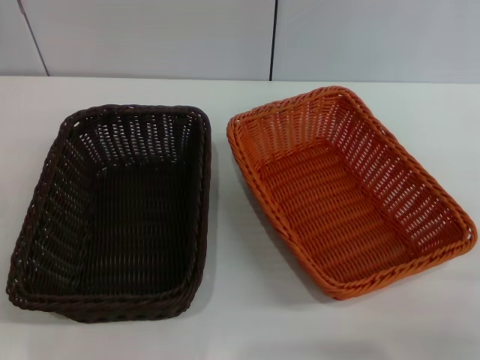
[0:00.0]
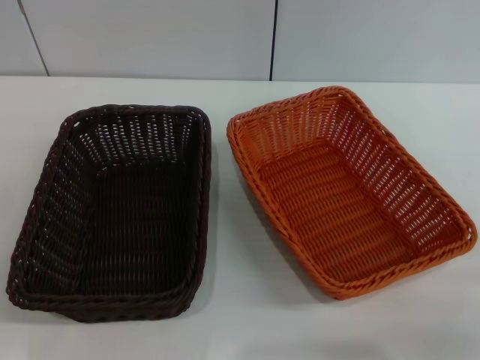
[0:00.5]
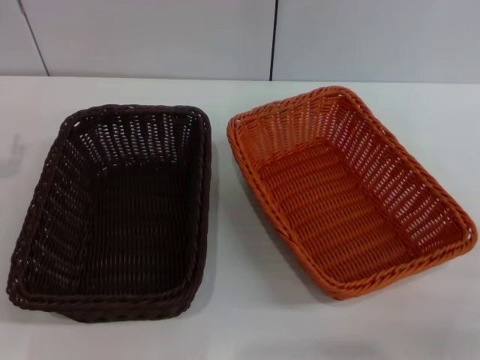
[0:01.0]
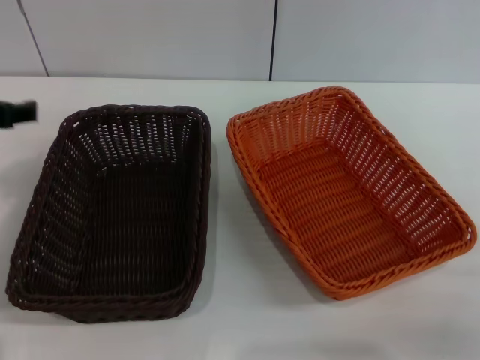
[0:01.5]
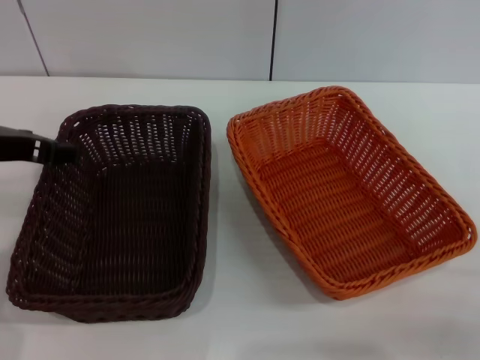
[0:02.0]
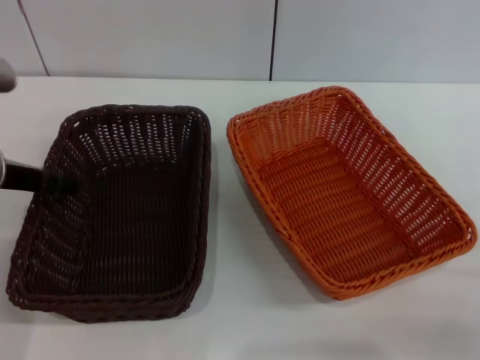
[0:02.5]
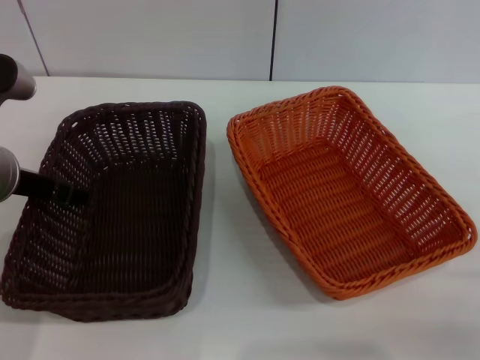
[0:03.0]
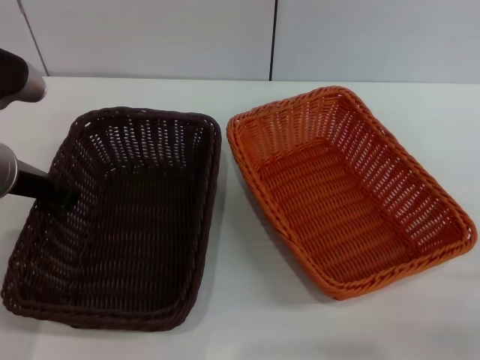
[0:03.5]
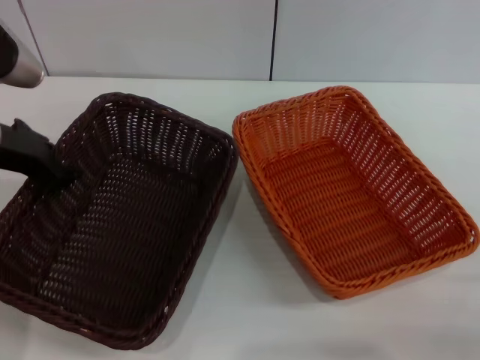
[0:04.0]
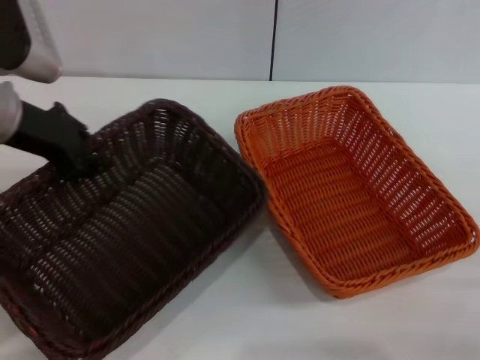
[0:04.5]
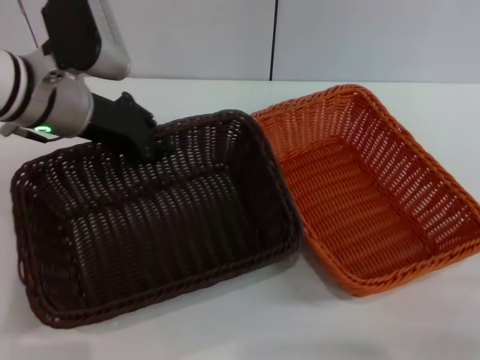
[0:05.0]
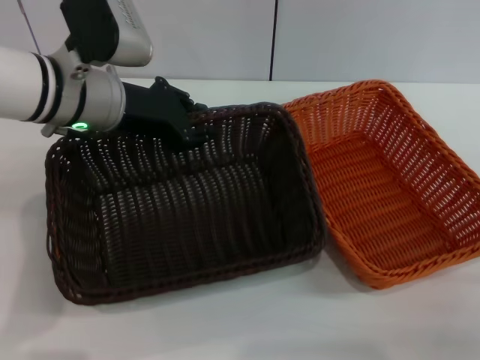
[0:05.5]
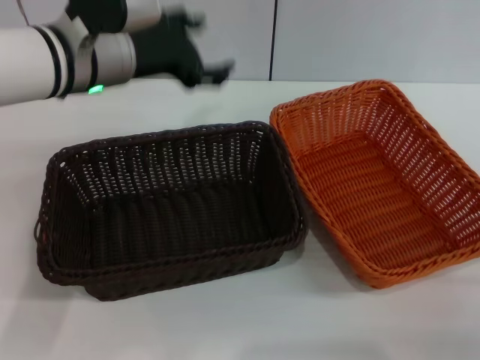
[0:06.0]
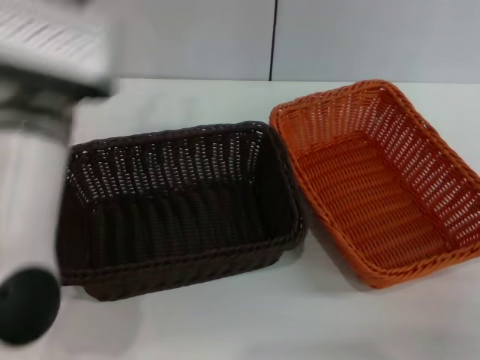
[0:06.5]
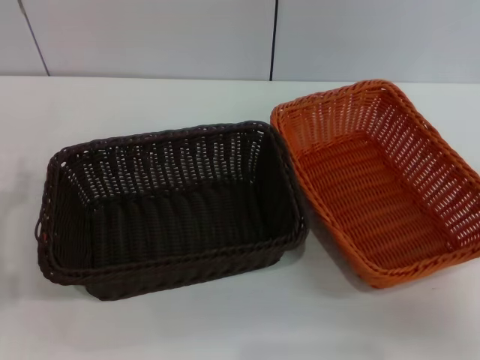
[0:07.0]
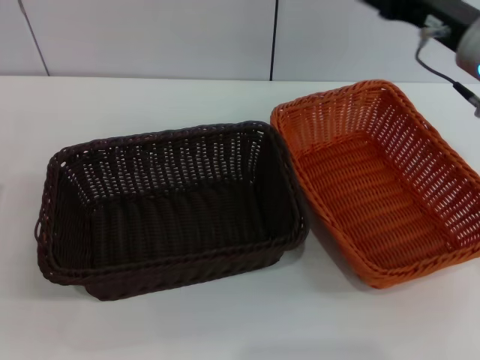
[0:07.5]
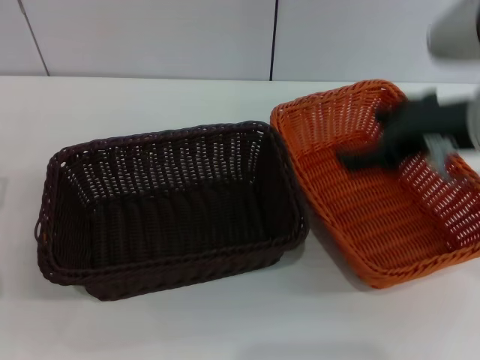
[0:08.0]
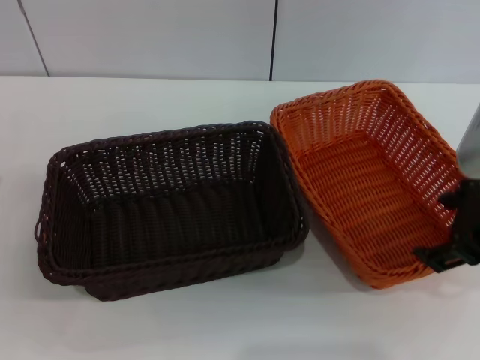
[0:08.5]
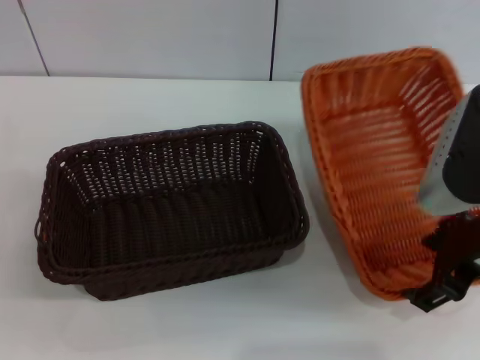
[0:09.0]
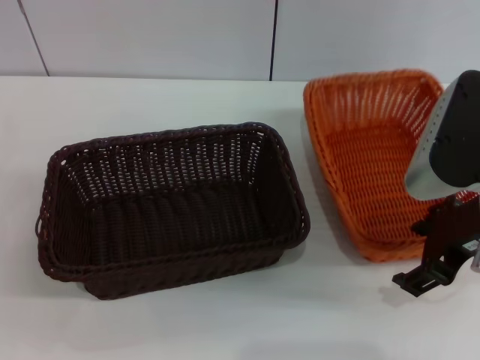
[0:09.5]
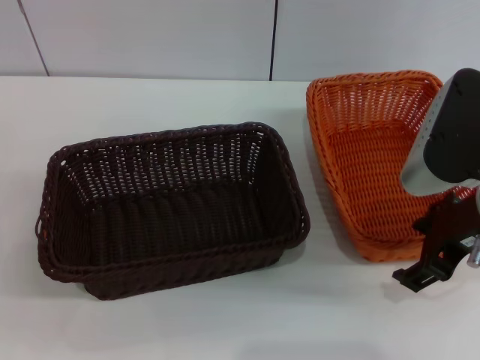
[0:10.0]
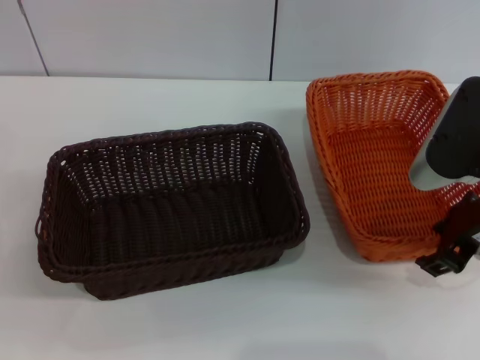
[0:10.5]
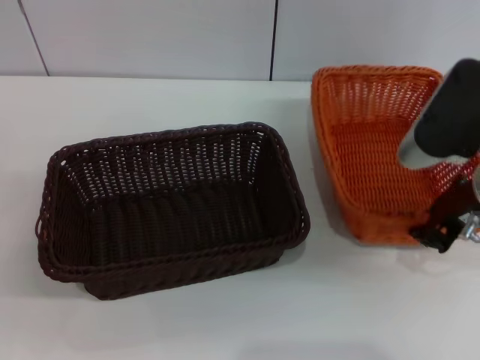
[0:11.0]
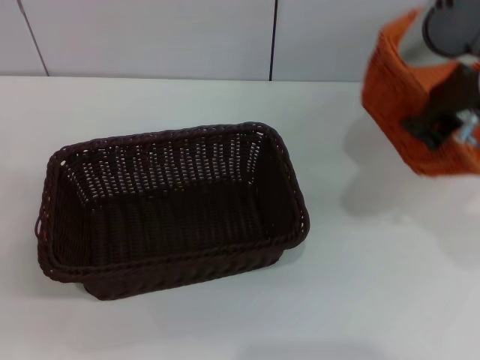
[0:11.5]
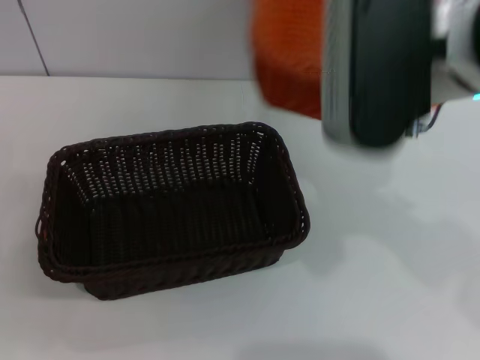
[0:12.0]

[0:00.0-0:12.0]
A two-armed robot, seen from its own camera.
Step, 0:00.0 to 0:04.5: Pick up the dark basket with the left gripper.
Step, 0:05.0 to 0:05.5: Place the dark basket in the center of view with the left gripper.
Step, 0:06.0 to 0:11.0: Pick up the light basket with the right gripper.
0:00.0 to 0:02.0: The left gripper shifts approximately 20 cm upward, to the right and forward.
0:02.0 to 0:04.0: The left gripper closes its fingers.
0:04.0 to 0:06.0: The left gripper heads to the right and forward, covering approximately 10 cm, and opens its fingers.
0:06.0 to 0:08.0: The right gripper moves upward, to the left and forward, roughly 25 cm. The left gripper is displaced to the left, downward and backward by roughly 25 cm, and opens its fingers.
0:10.0 to 0:12.0: The right gripper is displaced upward and to the left by approximately 10 cm, and closes up.

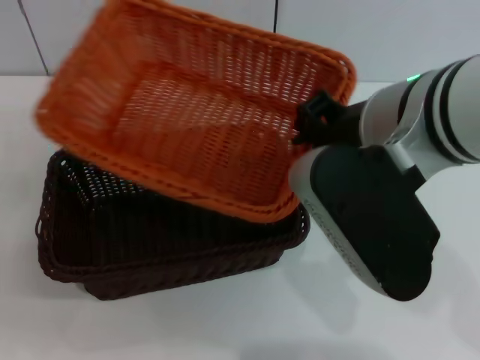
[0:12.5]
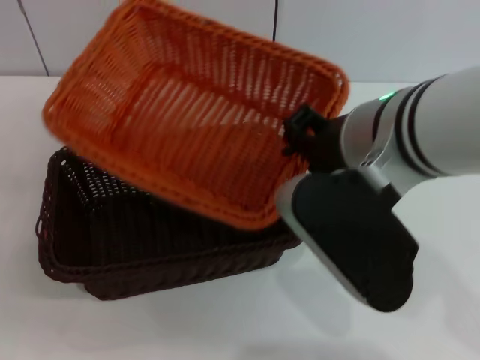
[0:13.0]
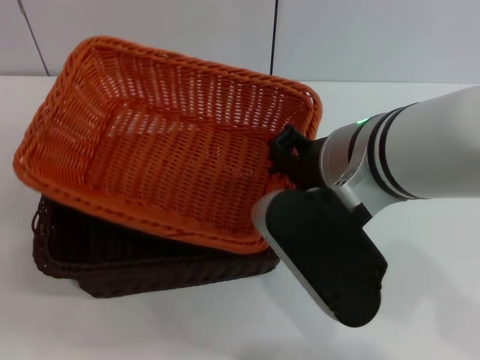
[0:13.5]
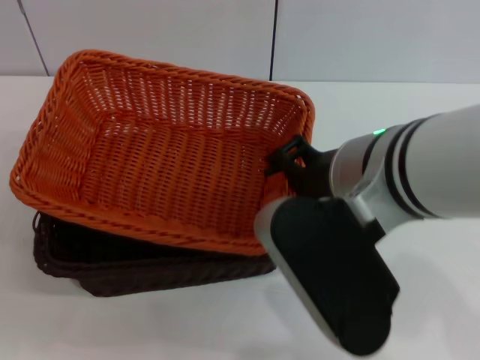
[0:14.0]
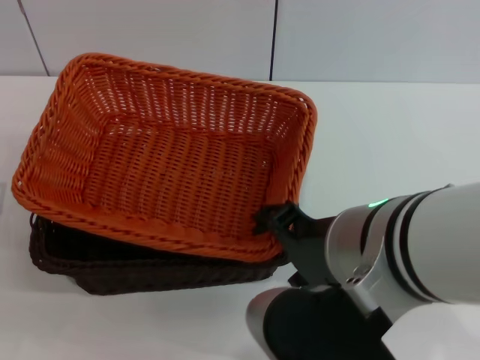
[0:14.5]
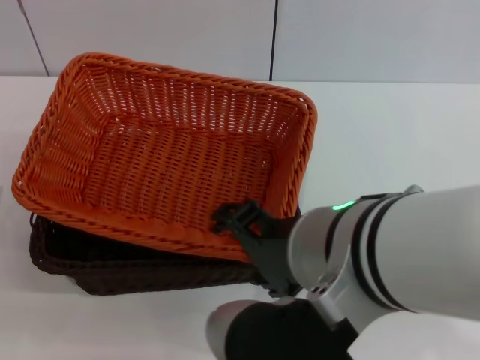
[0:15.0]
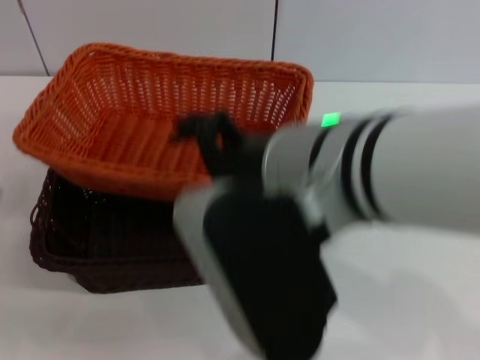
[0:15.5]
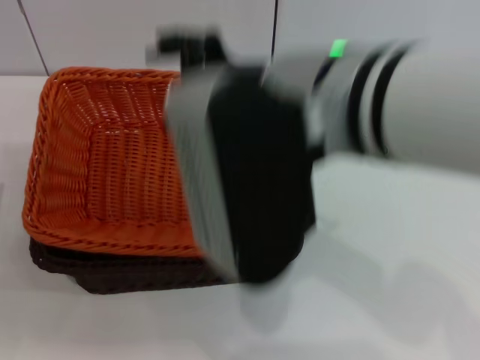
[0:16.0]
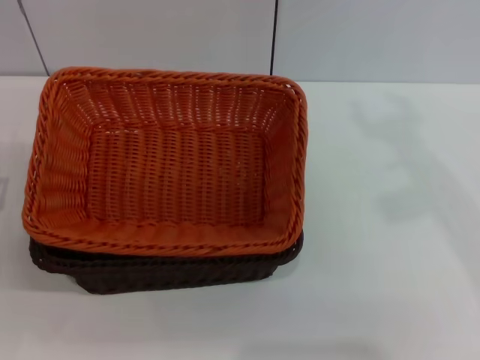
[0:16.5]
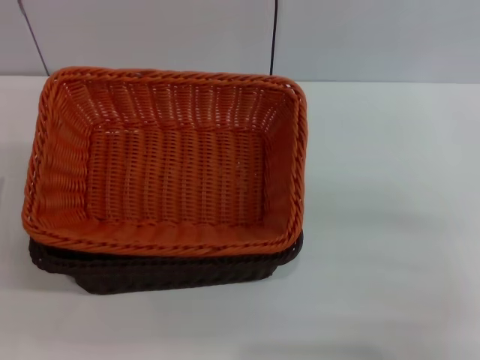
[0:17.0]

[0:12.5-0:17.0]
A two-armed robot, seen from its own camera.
Step, 0:12.5 to 0:15.5: Place the light basket on the dark basket with the right gripper.
0:12.5 to 0:14.5: The right gripper shifts about 5 cm backward, and opens its fingers.
0:14.5 to 0:17.0: The right gripper moves to the right and downward, about 25 cm.
